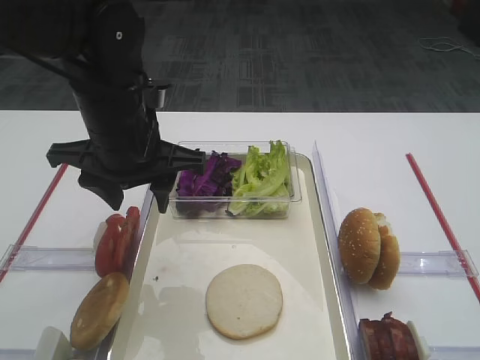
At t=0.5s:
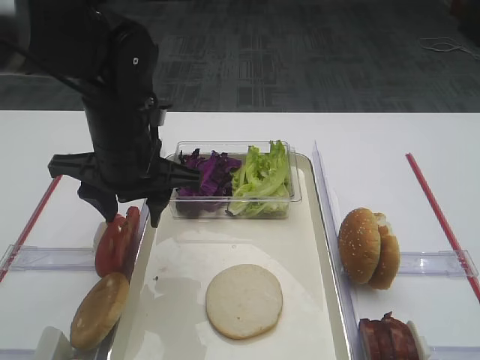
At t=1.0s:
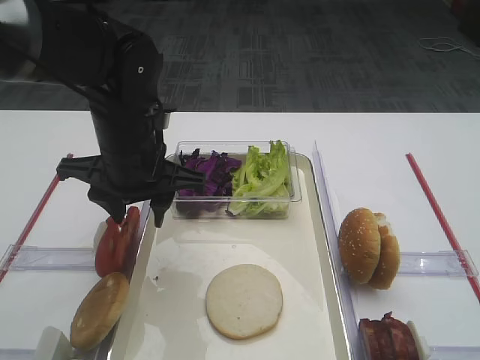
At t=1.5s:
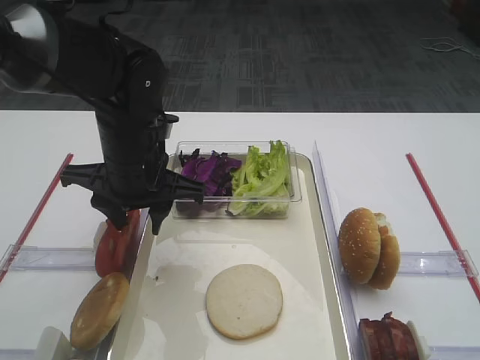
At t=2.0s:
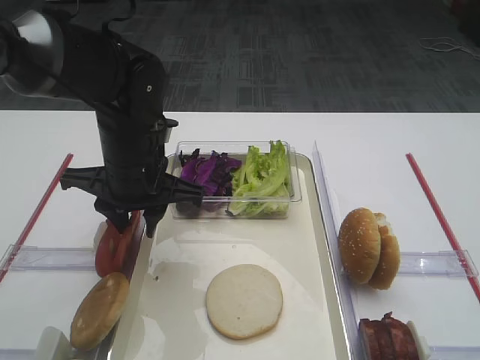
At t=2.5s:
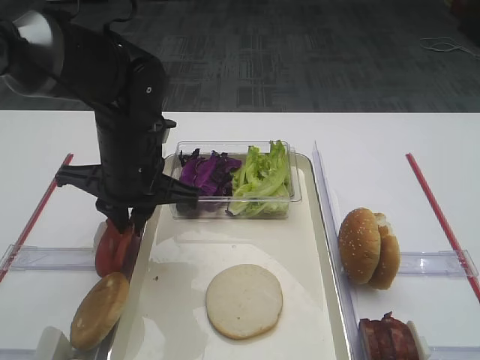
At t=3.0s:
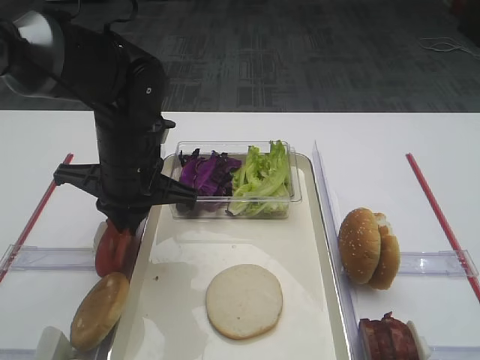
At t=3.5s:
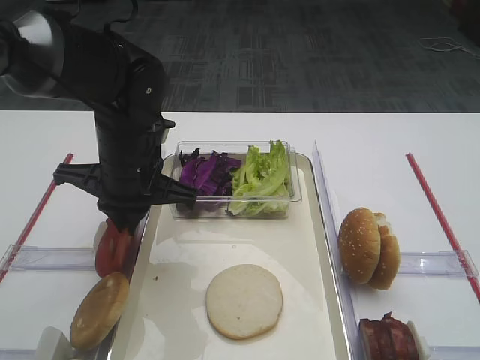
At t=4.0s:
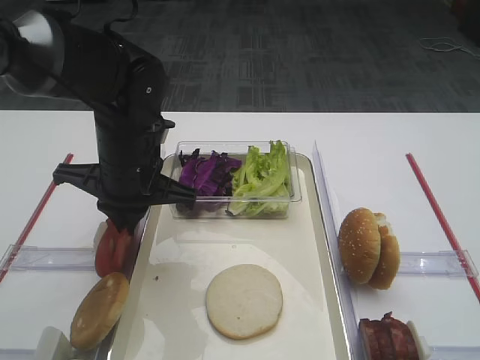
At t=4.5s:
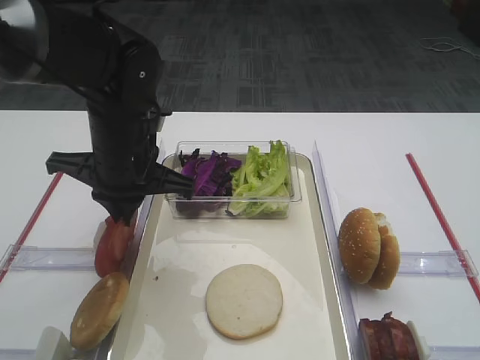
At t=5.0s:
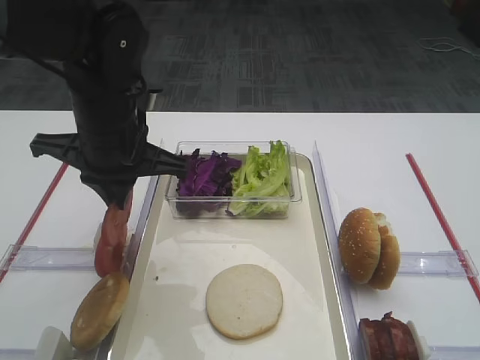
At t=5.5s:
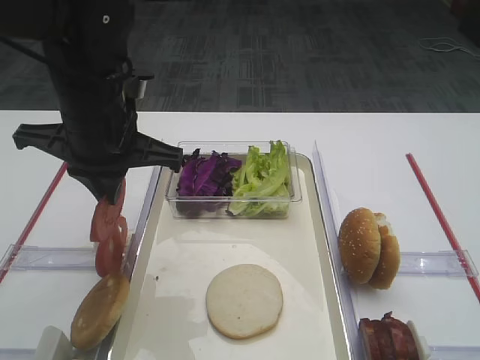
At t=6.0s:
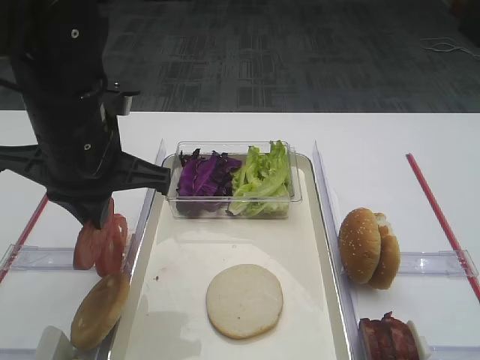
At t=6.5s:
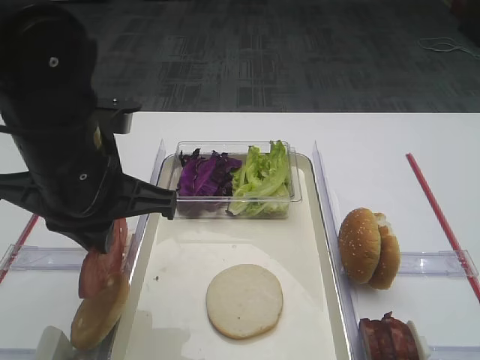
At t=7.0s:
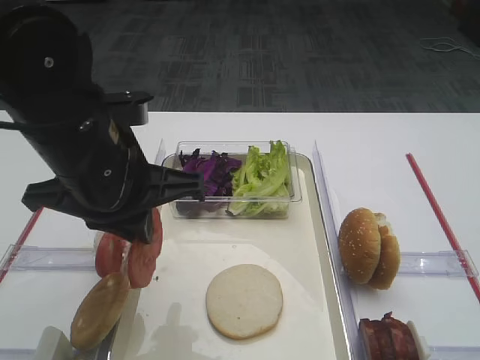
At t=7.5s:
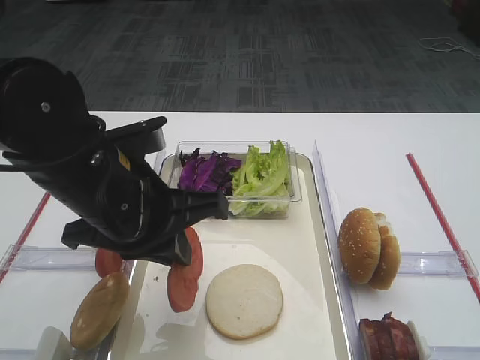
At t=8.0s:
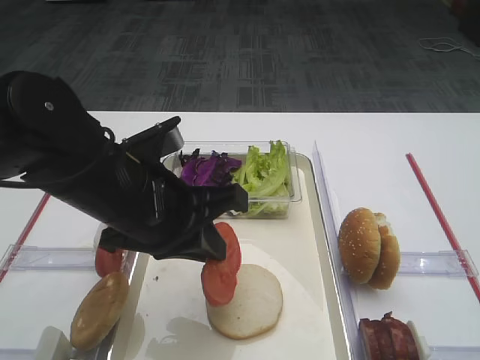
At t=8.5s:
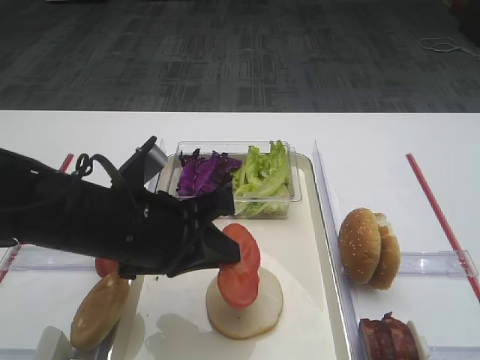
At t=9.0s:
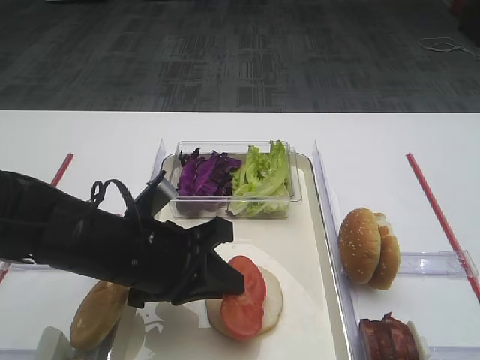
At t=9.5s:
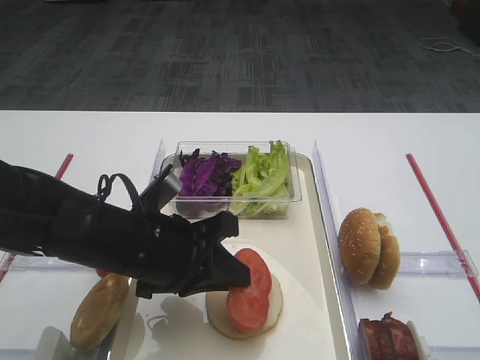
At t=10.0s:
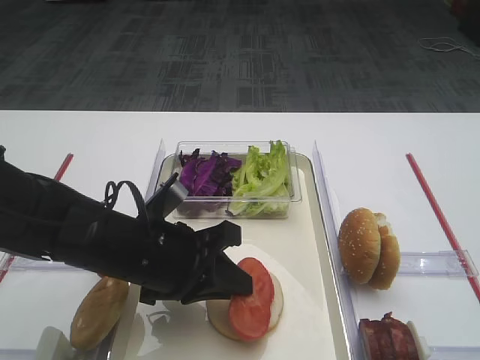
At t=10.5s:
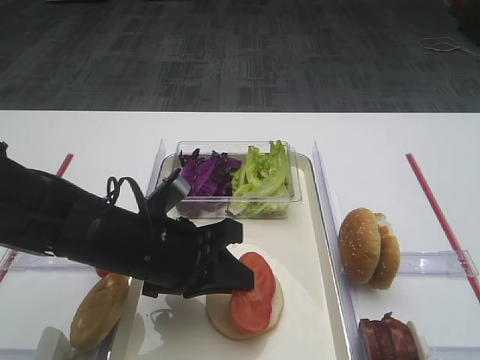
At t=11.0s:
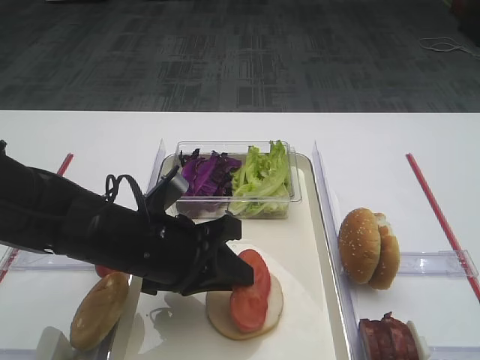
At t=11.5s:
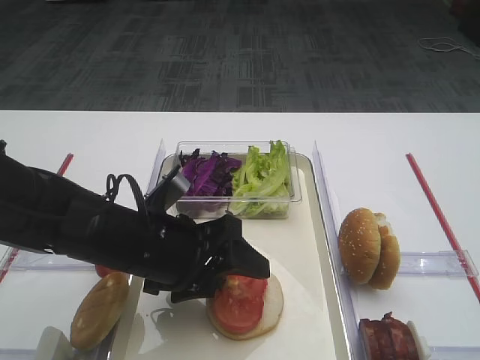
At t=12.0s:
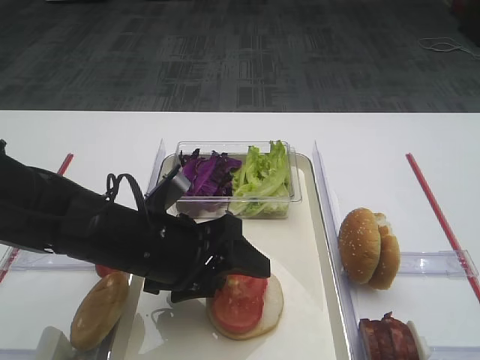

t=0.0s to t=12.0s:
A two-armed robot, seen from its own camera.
Step, t=0.0s to t=6.0s: Pick up the tomato slice with the left gripper.
t=0.0s to t=2.0s: The left gripper shifts about 5 cm downward.
t=2.0s to t=4.0s: The left gripper closes its fingers.
t=4.0s to t=6.0s: The left gripper shifts some 10 cm upward and backward.
t=6.0s to t=8.0s: The left gripper ends up about 10 cm from where it was.
t=8.0s to t=10.0s: The left gripper heads downward, covering about 10 cm.
t=10.0s to t=12.0s: The left gripper opens its fingers.

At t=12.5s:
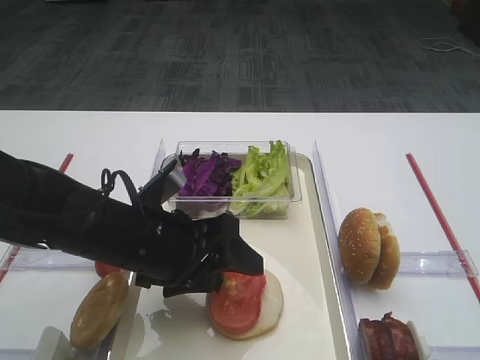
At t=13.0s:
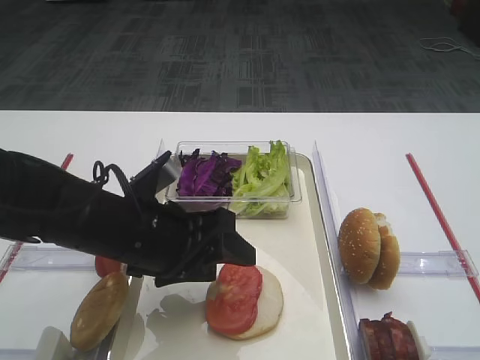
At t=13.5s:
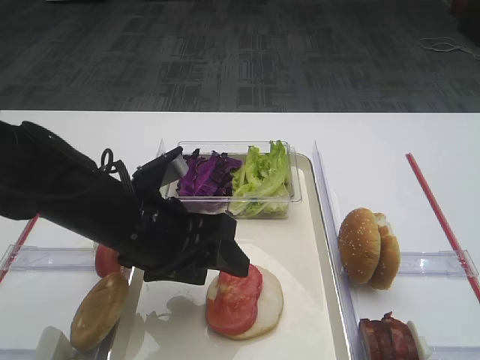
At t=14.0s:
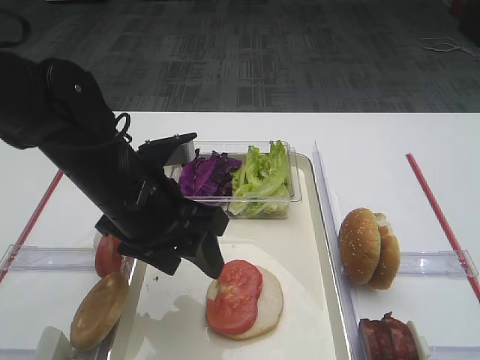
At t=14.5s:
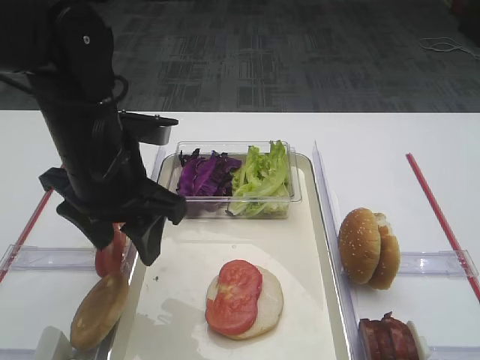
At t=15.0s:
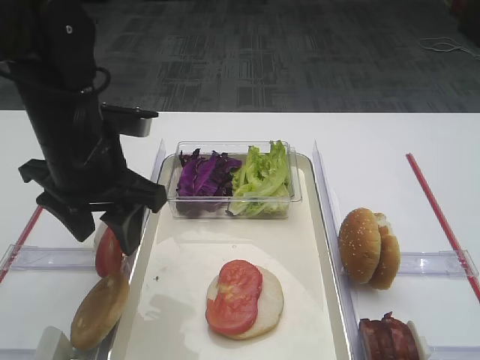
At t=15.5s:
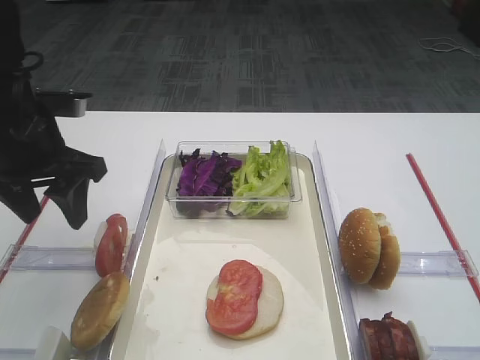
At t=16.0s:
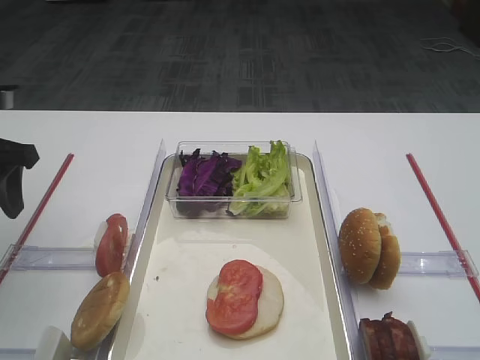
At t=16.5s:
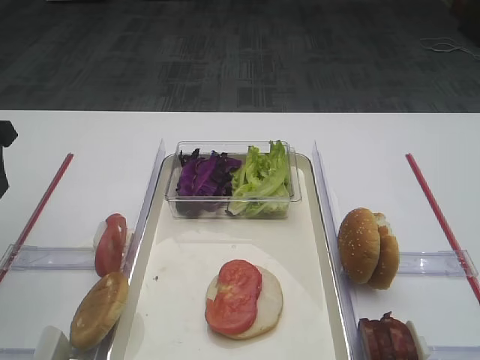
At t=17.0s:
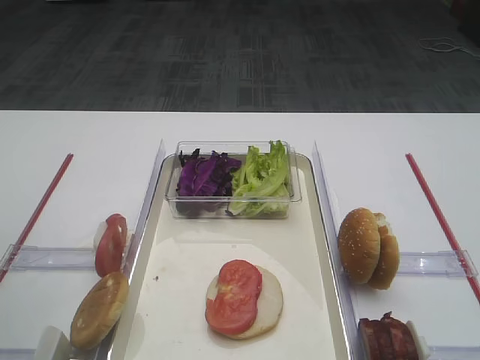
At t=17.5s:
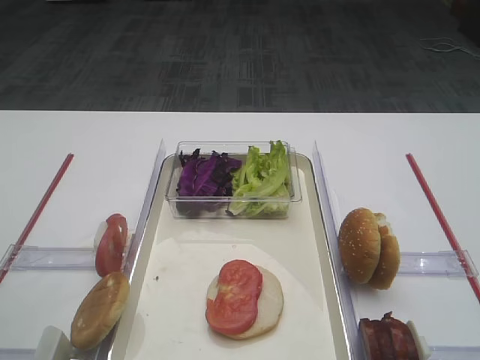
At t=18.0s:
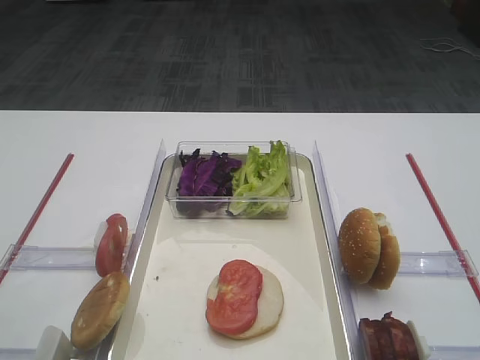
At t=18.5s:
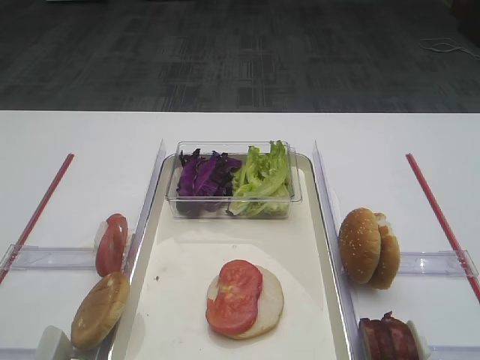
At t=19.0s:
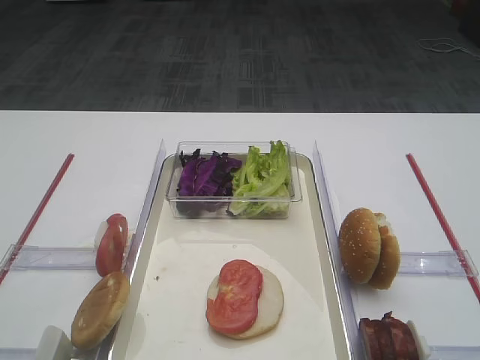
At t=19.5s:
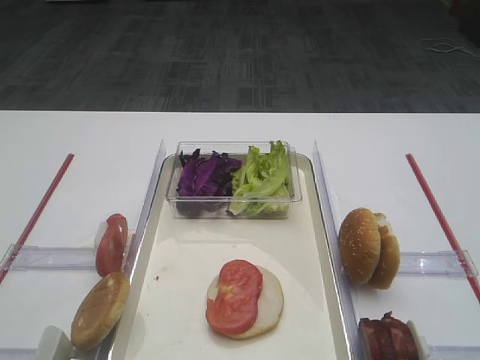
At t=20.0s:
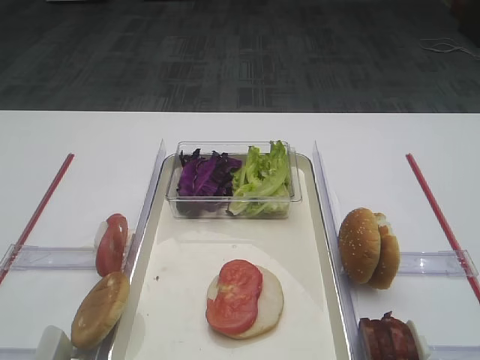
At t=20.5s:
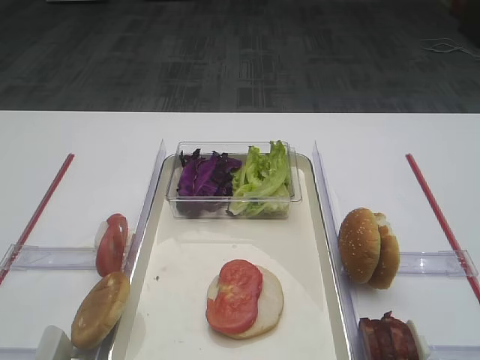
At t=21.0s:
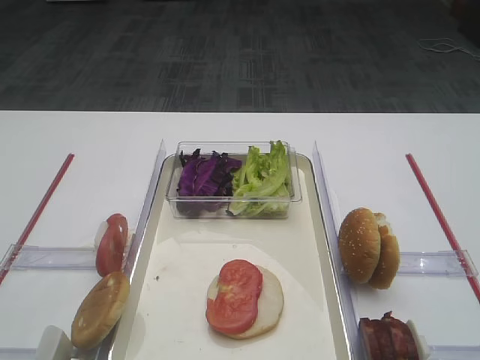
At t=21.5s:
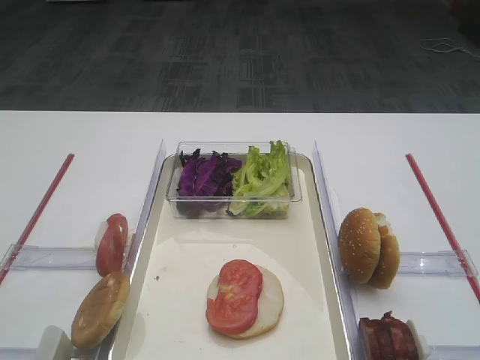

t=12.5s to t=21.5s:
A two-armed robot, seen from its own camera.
t=12.5s to t=14.5s: The left gripper is displaced upward by roughly 10 cm.
t=14.5s to t=17.0s: The left gripper moves to the left, approximately 15 cm.

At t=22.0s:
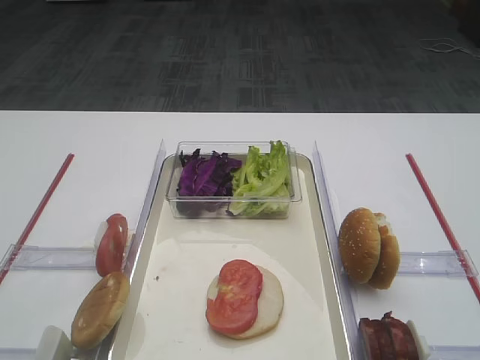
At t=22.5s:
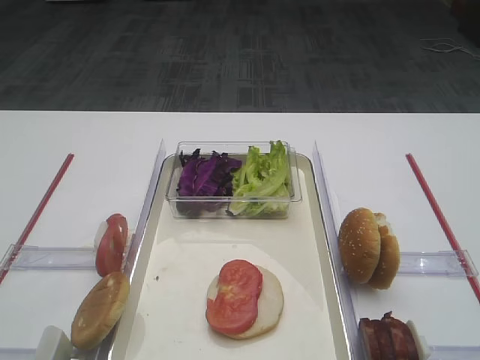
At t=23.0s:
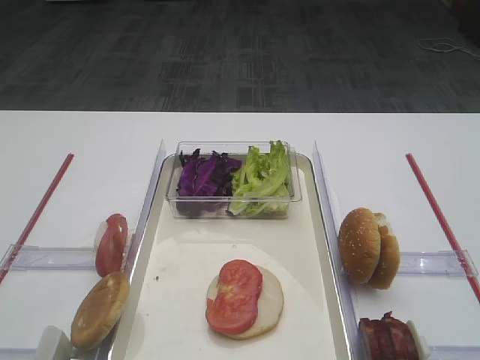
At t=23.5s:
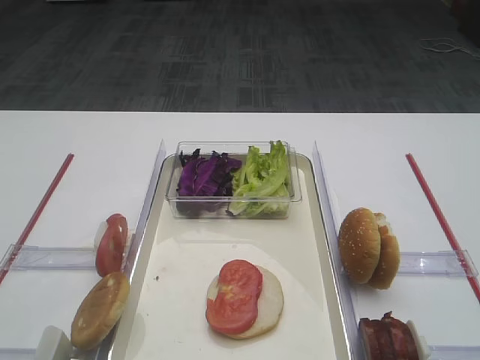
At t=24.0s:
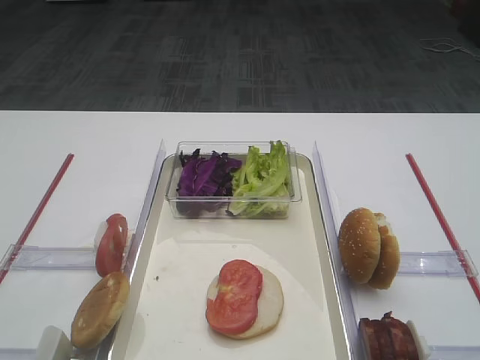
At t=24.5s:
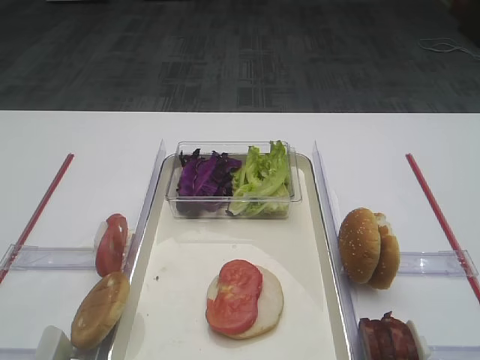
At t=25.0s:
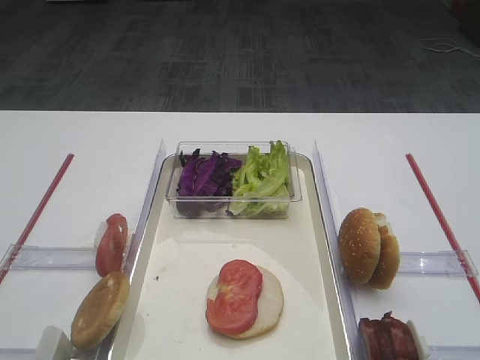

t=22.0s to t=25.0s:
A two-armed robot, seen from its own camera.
t=22.0s to t=25.0s: Neither gripper changes place.

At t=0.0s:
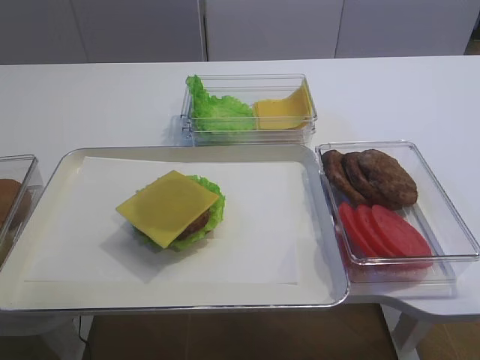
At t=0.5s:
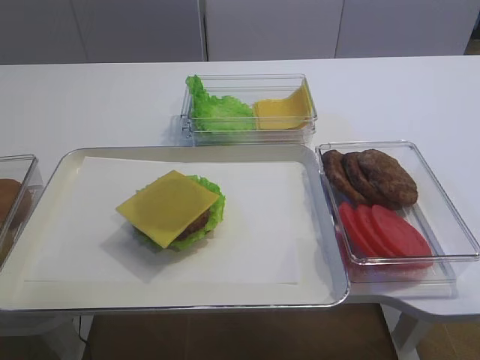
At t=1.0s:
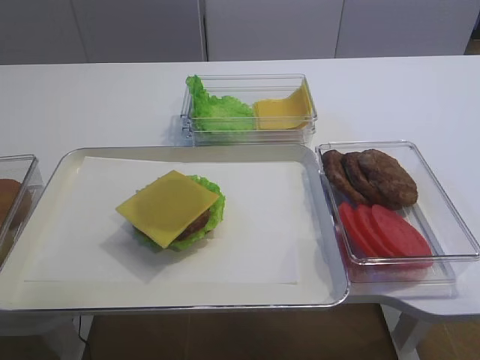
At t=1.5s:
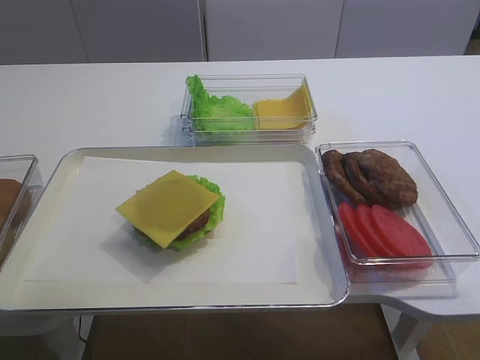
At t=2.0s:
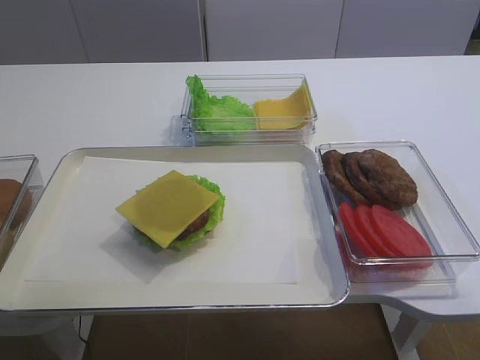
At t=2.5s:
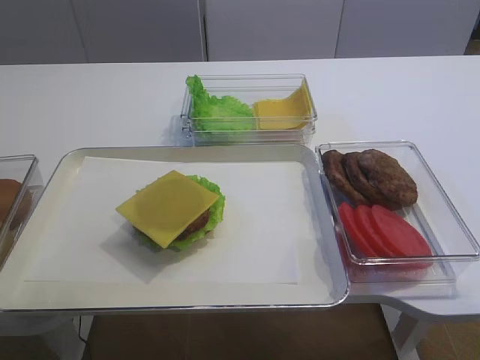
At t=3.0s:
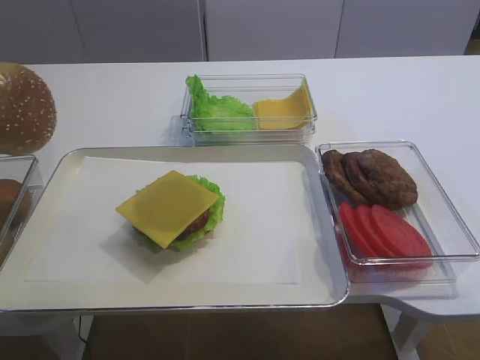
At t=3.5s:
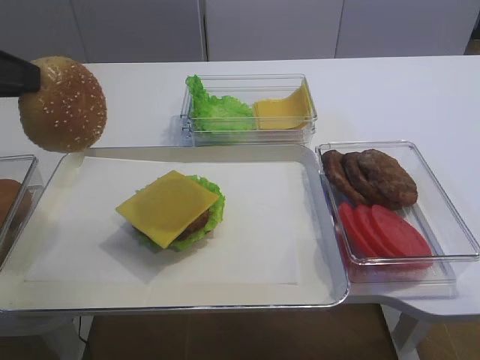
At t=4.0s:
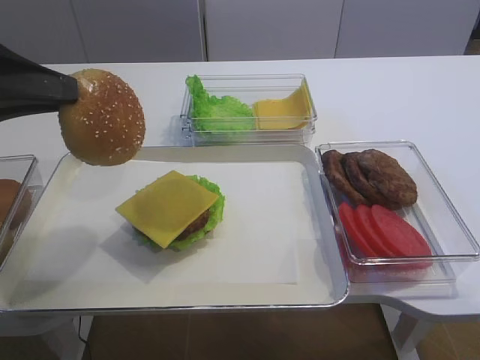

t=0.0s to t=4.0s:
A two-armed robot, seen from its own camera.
t=2.0s to t=4.0s: The left gripper moves to the right, roughly 15 cm.
